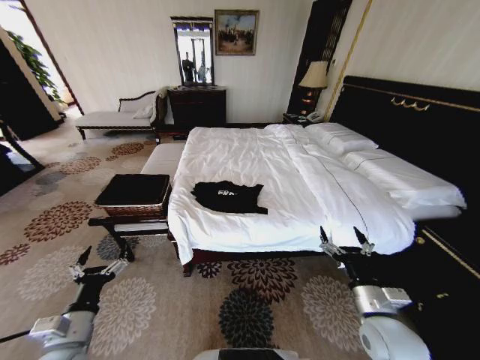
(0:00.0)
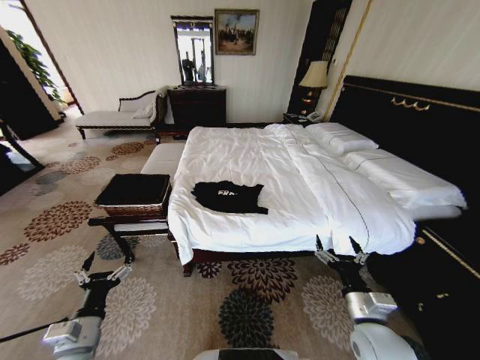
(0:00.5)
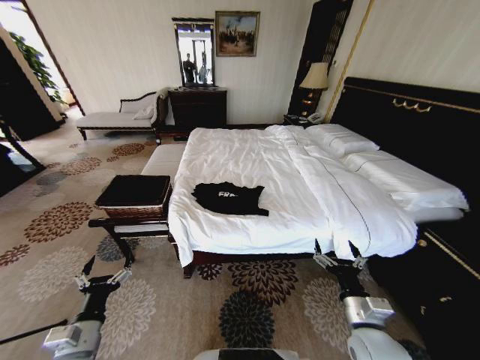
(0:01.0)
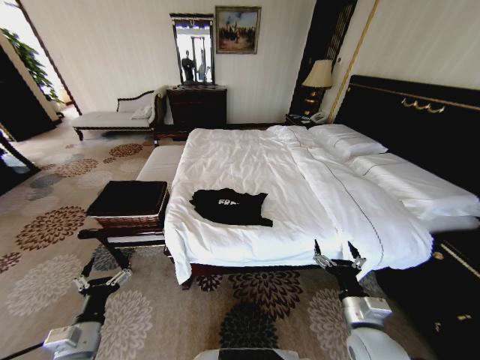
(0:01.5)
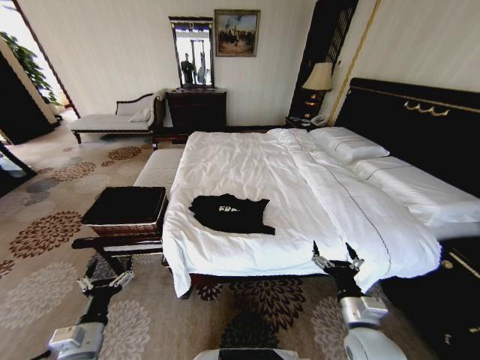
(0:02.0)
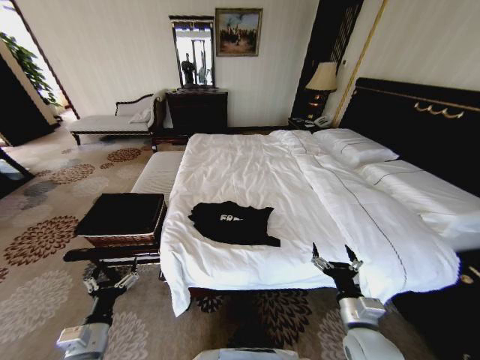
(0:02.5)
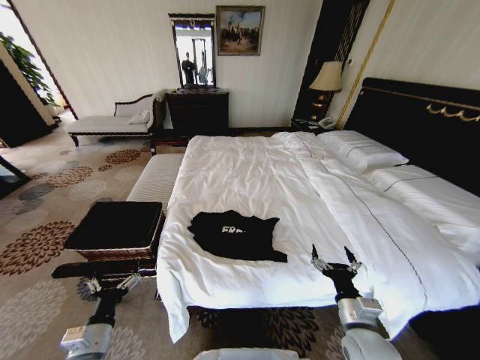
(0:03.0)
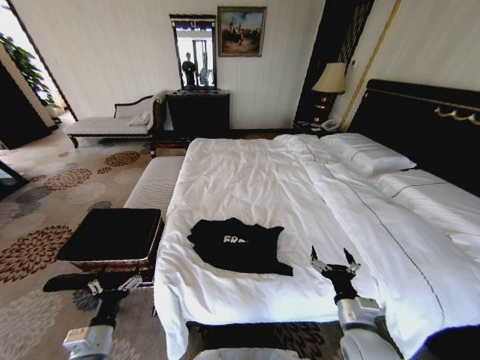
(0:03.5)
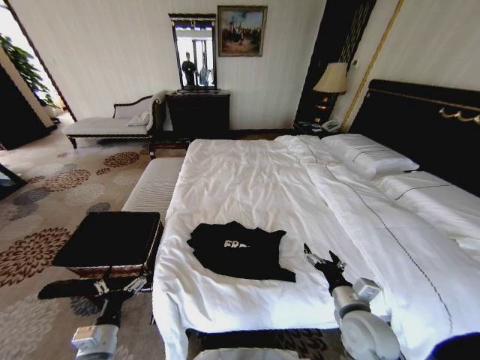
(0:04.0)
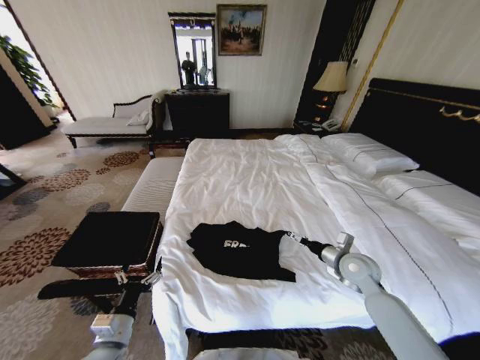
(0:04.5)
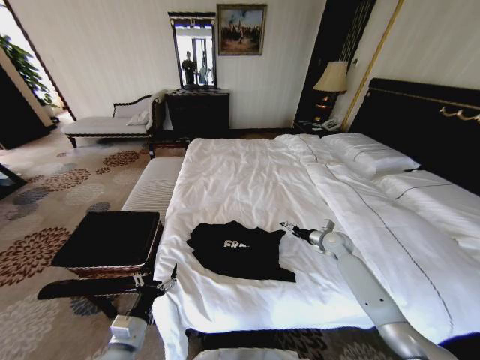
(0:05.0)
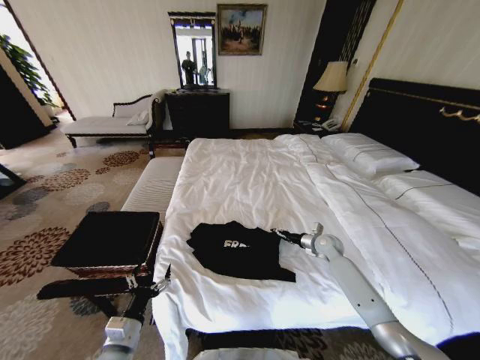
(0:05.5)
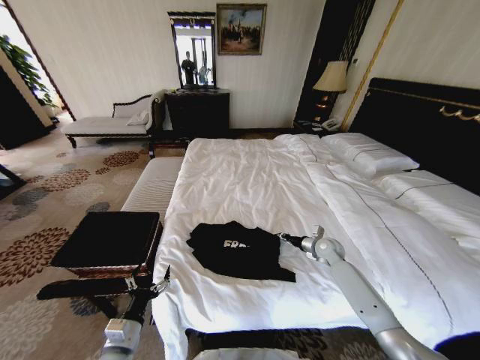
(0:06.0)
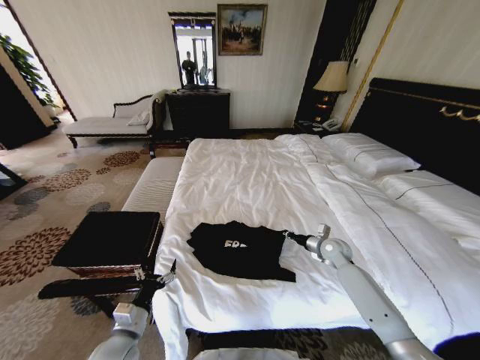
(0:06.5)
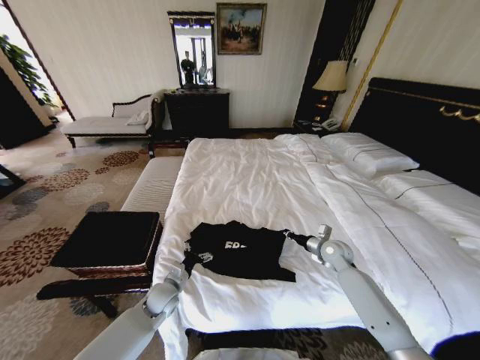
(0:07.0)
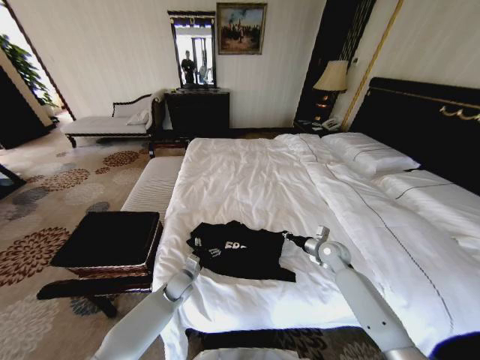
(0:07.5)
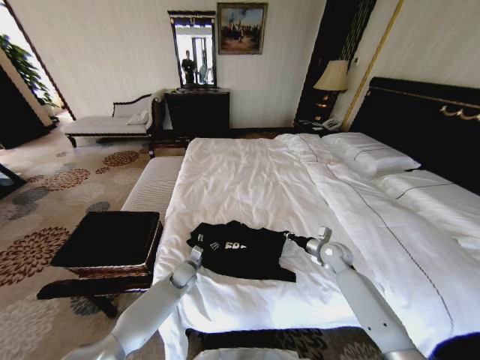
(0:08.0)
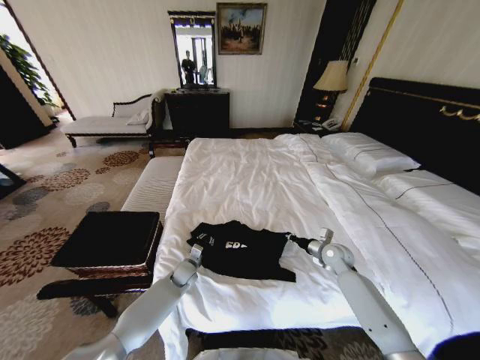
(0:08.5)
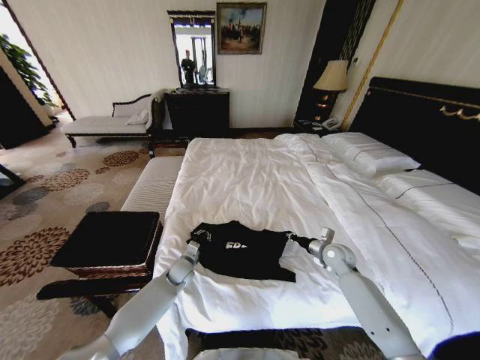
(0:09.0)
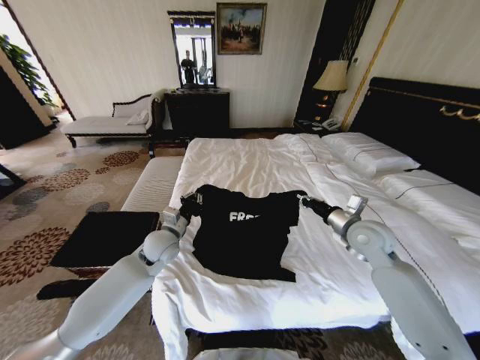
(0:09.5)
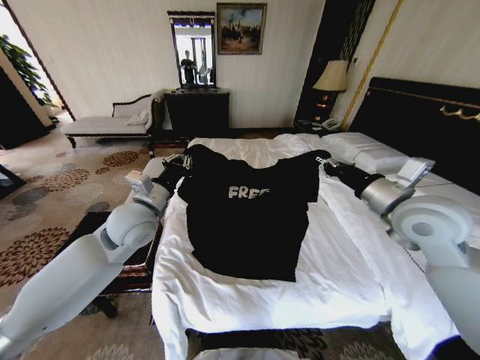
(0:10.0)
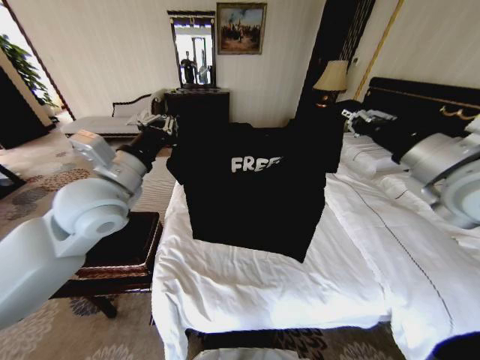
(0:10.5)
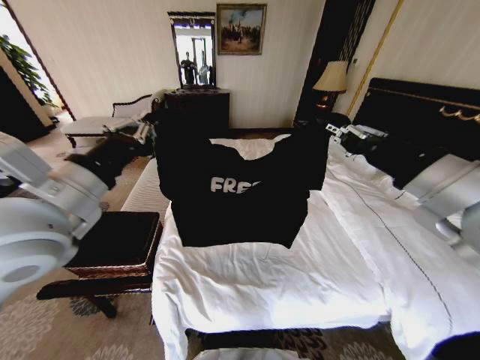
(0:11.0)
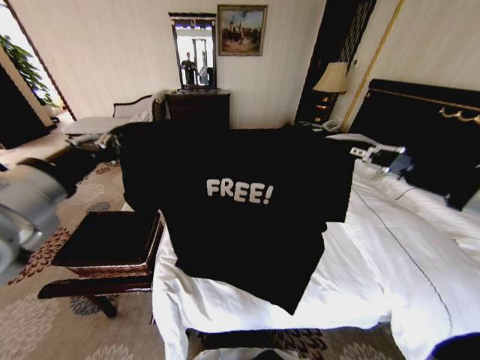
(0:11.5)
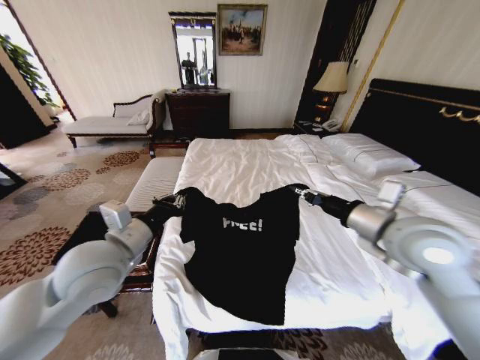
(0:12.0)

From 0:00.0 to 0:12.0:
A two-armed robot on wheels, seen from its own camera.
Task of the whole recording: Fold the clothes on the bed and place them into the basket.
From 0:04.0 to 0:06.0: The right gripper is displaced forward by about 25 cm, and closes up.
From 0:06.0 to 0:08.0: The left gripper is displaced forward and downward by about 30 cm.
From 0:08.0 to 0:10.0: Both grippers move upward, some 35 cm. The left gripper closes up.
From 0:10.0 to 0:12.0: The right gripper moves approximately 15 cm backward and comes back. The left gripper is displaced backward by about 10 cm.

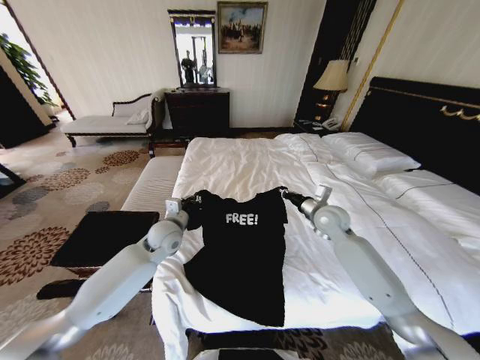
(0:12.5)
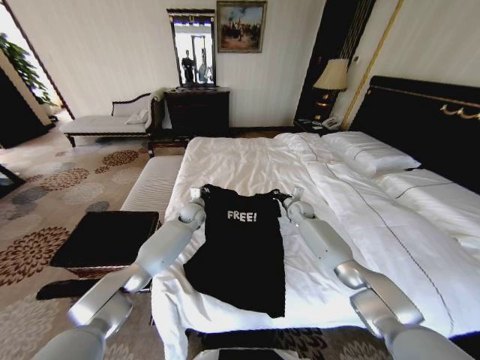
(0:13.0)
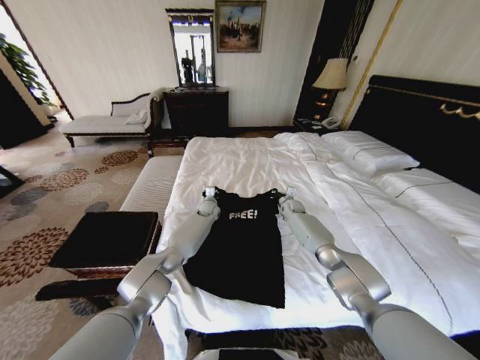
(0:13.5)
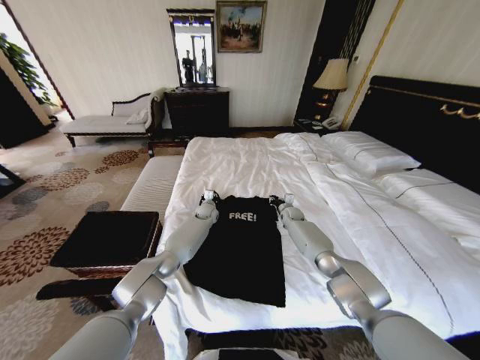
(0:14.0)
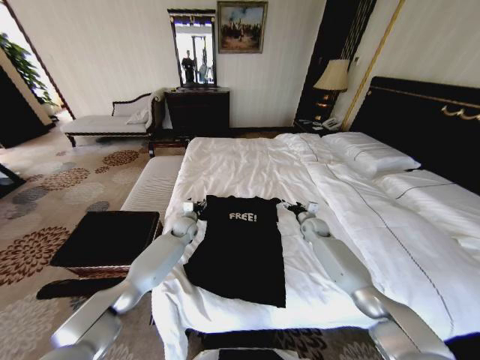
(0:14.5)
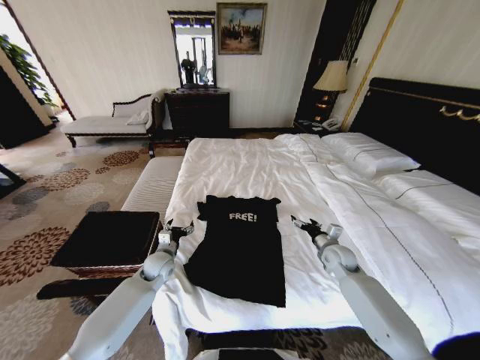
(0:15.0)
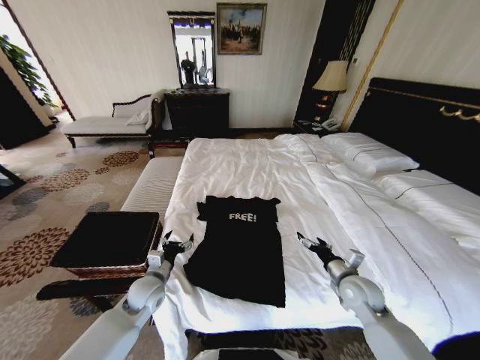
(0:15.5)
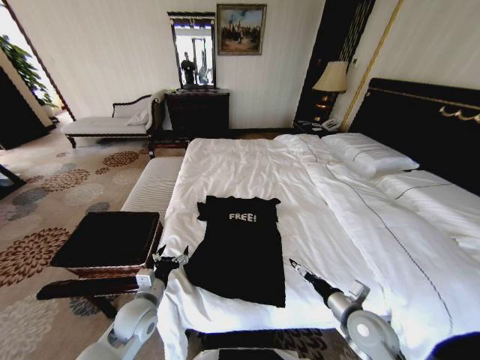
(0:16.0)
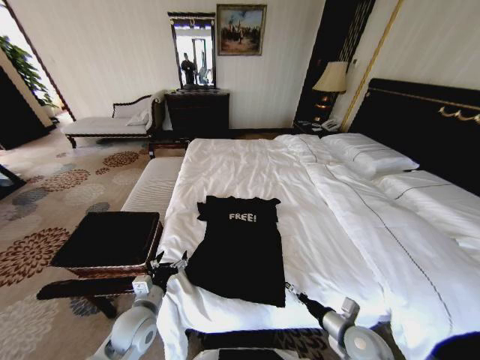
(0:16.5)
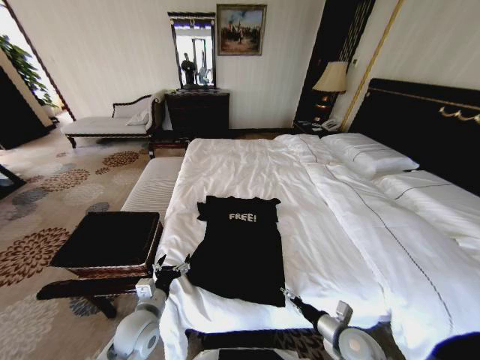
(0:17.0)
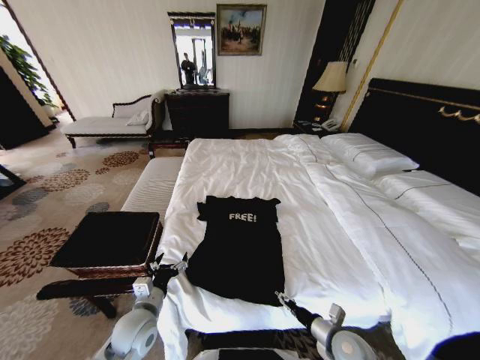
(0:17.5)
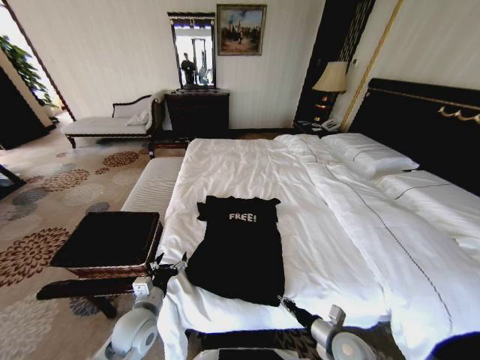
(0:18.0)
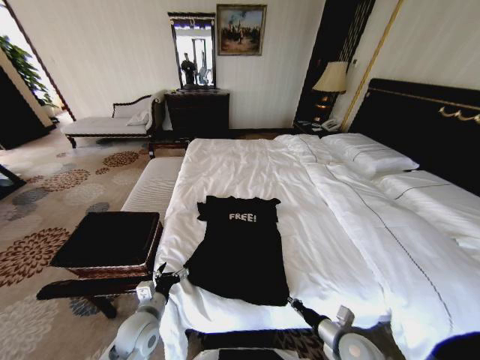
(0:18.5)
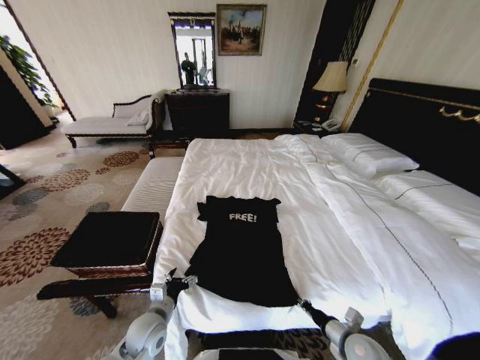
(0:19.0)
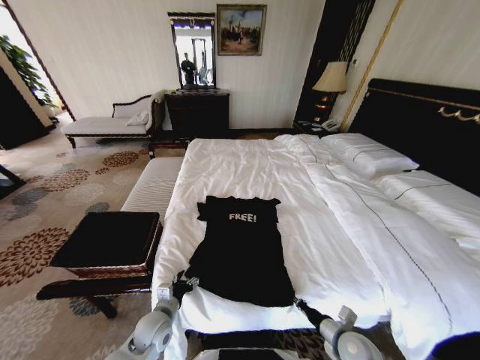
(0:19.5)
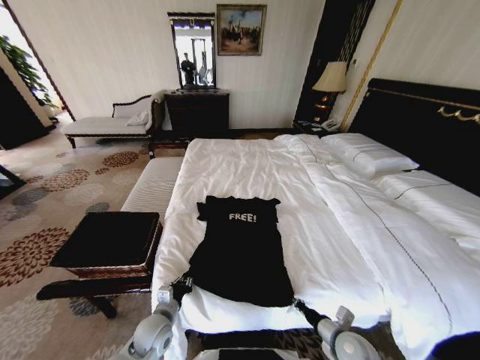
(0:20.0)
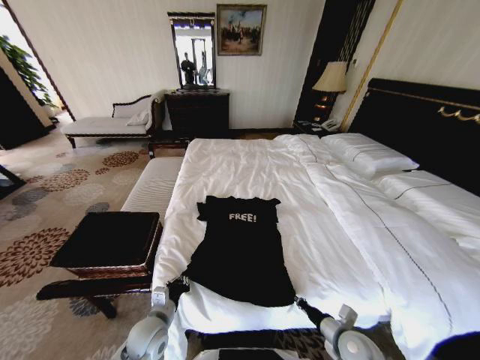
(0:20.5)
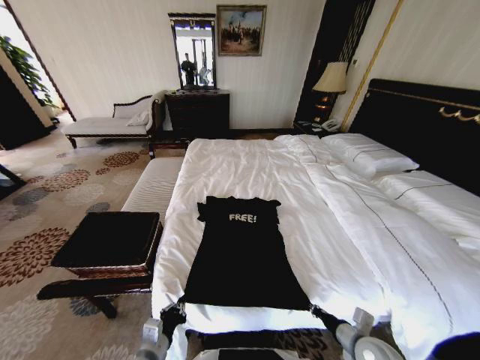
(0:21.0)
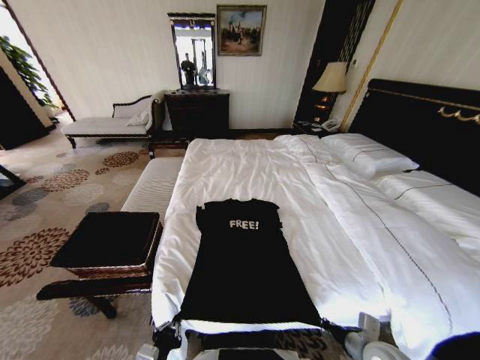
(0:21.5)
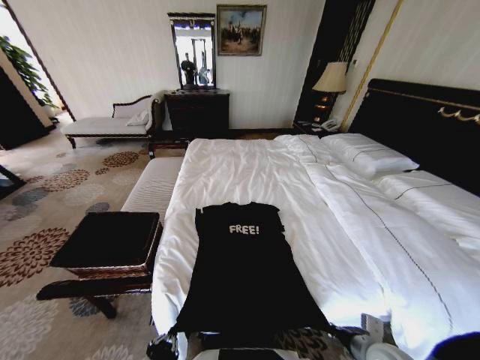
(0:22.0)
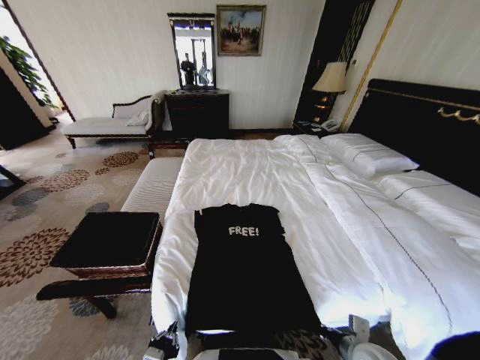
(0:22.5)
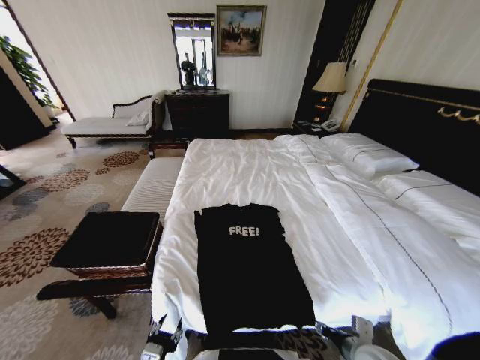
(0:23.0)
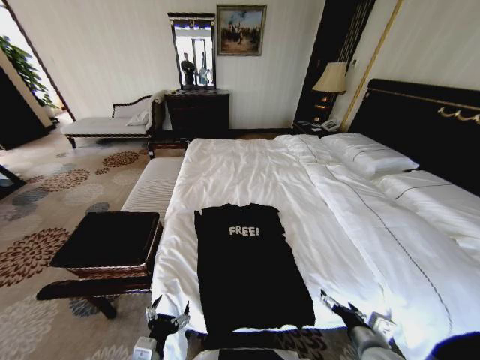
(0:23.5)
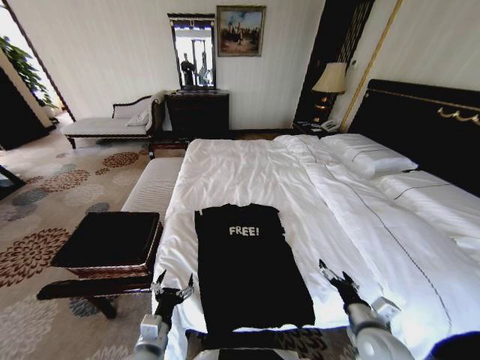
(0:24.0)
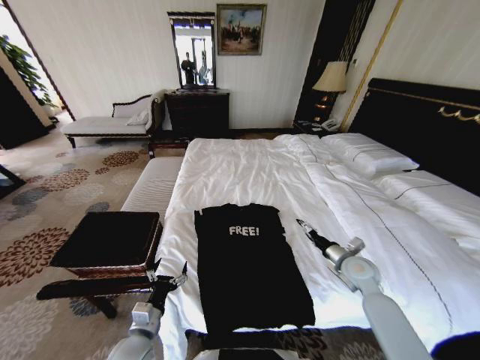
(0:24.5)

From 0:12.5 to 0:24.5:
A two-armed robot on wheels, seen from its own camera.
Task of the whole recording: Fold the clothes on the bed and place them into the basket.
From 0:12.5 to 0:14.5: The right gripper goes roughly 15 cm downward and forward, and opens, while the left gripper goes some 15 cm forward and downward, and opens.
From 0:14.5 to 0:16.5: The two grippers go approximately 35 cm backward.
From 0:16.5 to 0:18.5: The right gripper closes up.
From 0:18.5 to 0:20.5: The left gripper closes.
From 0:20.5 to 0:22.5: The right gripper shifts by approximately 5 cm; the left gripper is displaced backward by roughly 15 cm.
From 0:22.5 to 0:24.5: The left gripper travels forward by about 10 cm, and opens its fingers. The right gripper shifts about 20 cm forward, and opens.

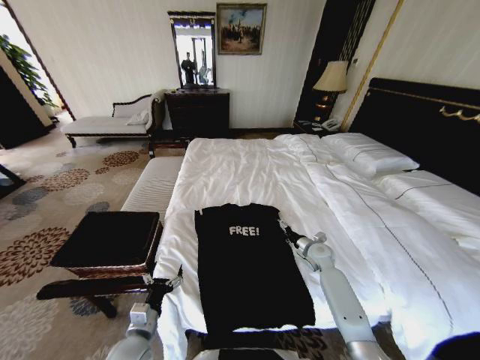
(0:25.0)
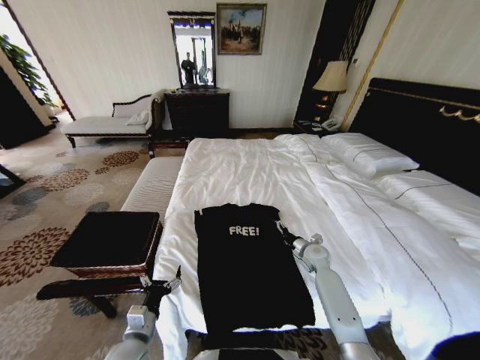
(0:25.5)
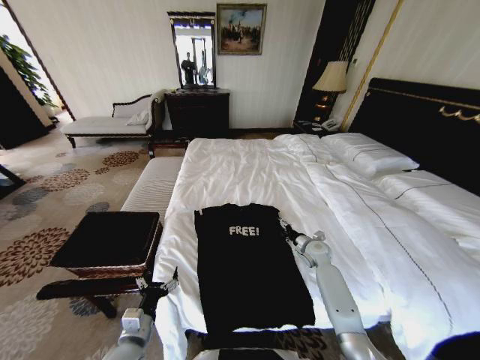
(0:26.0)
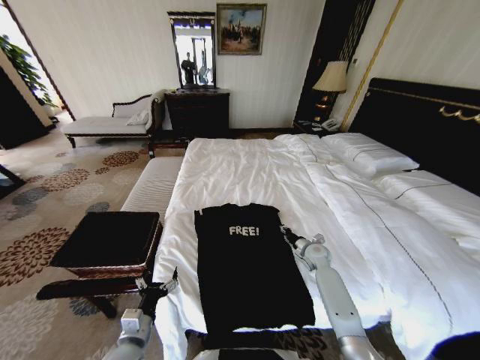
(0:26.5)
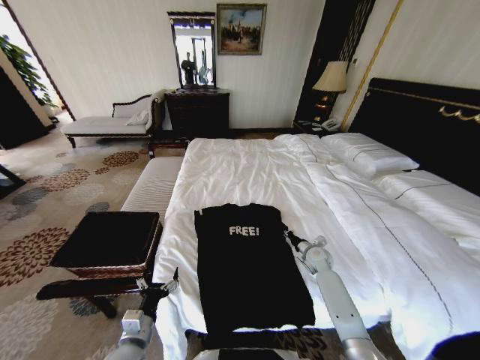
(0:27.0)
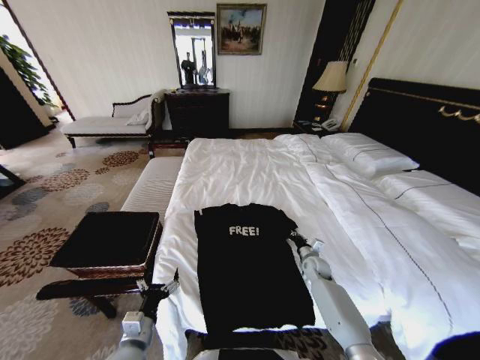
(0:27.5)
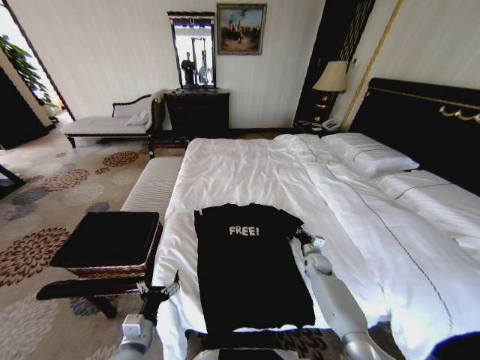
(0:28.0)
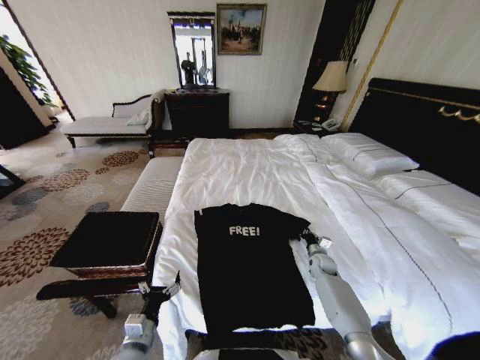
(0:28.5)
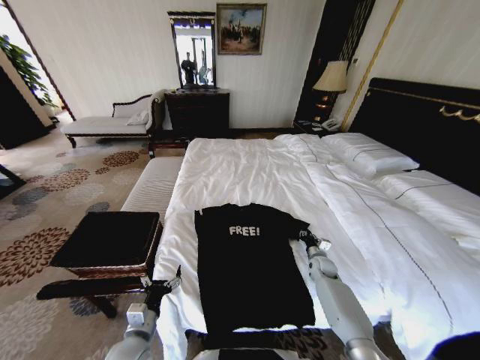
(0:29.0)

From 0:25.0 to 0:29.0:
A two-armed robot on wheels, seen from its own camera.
Task of the whole recording: Fold the clothes on the bed and place them into the basket.
From 0:25.0 to 0:27.0: The right gripper closes up.
From 0:27.0 to 0:29.0: The right gripper changes place by roughly 5 cm.
